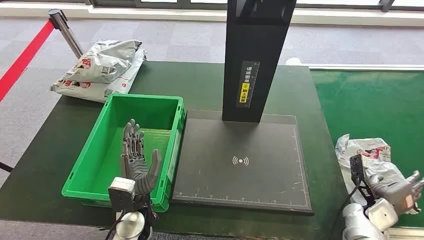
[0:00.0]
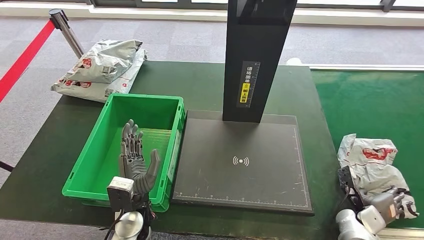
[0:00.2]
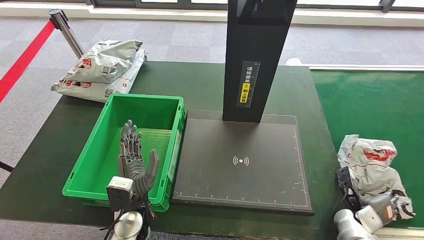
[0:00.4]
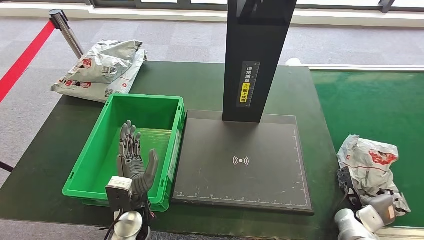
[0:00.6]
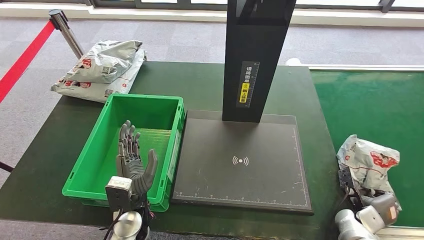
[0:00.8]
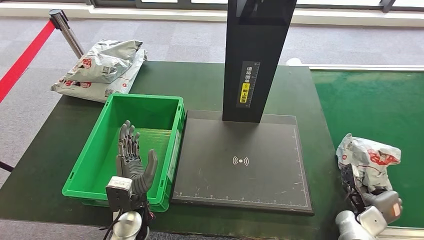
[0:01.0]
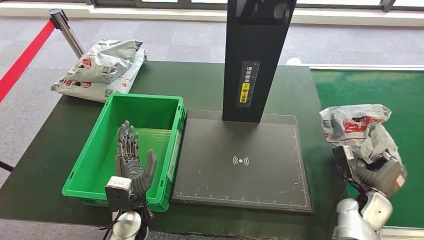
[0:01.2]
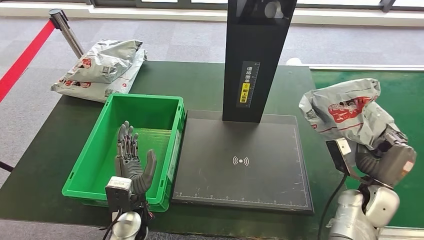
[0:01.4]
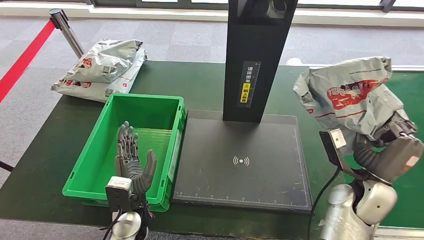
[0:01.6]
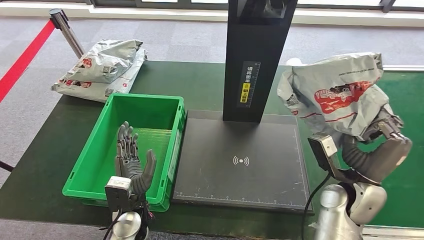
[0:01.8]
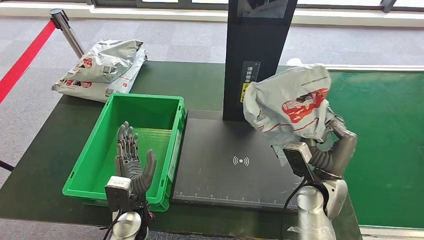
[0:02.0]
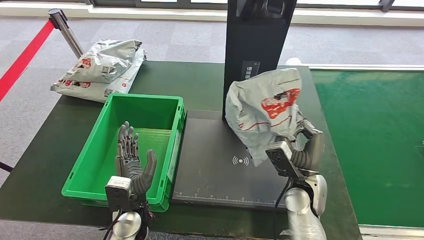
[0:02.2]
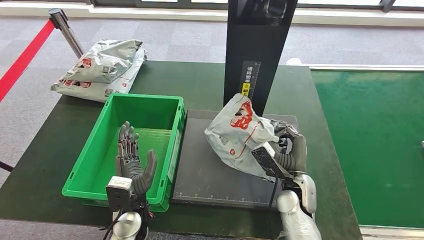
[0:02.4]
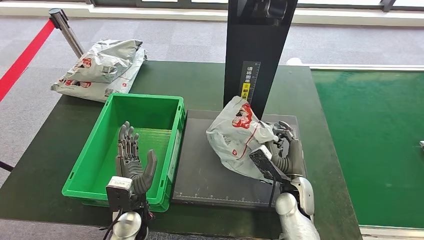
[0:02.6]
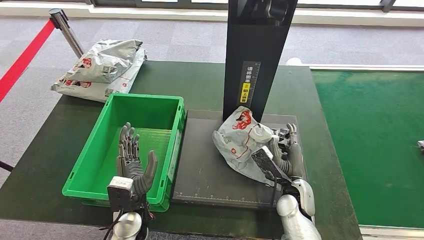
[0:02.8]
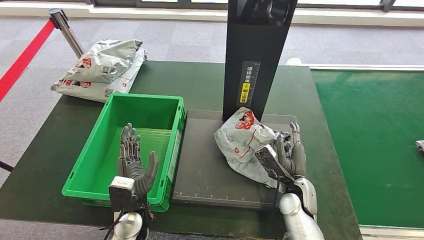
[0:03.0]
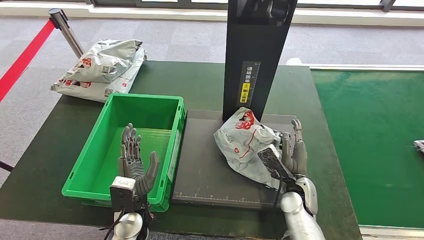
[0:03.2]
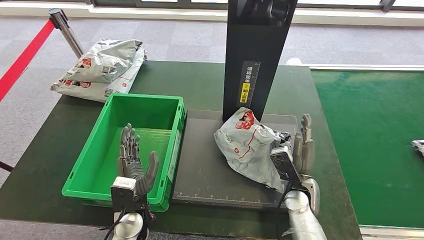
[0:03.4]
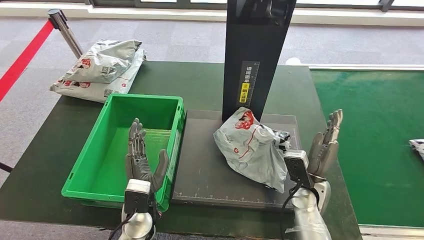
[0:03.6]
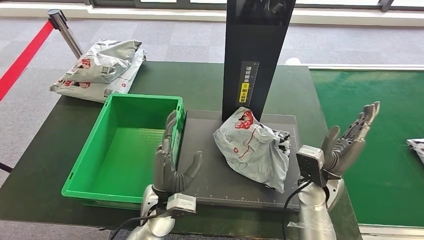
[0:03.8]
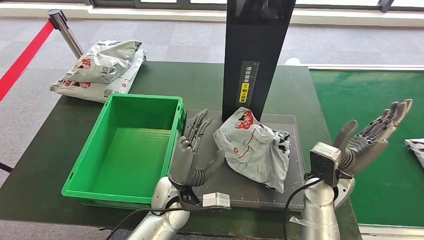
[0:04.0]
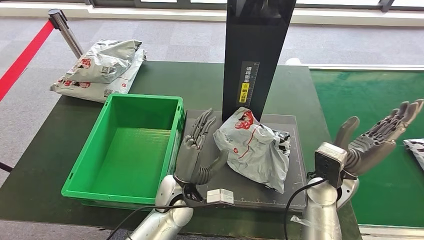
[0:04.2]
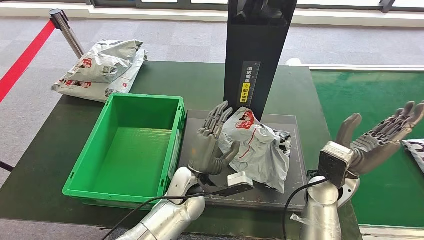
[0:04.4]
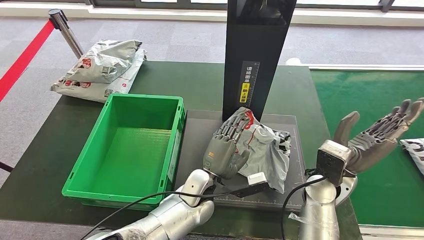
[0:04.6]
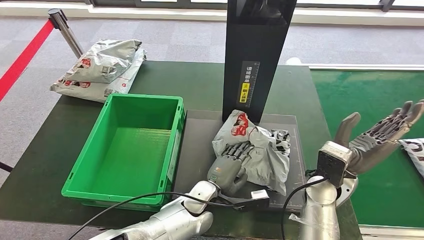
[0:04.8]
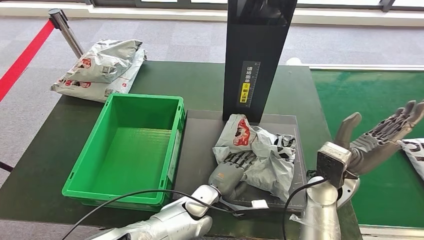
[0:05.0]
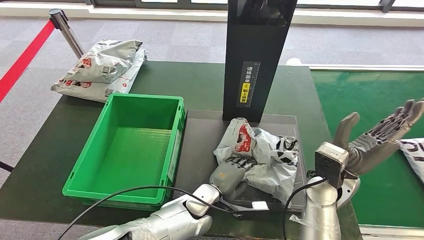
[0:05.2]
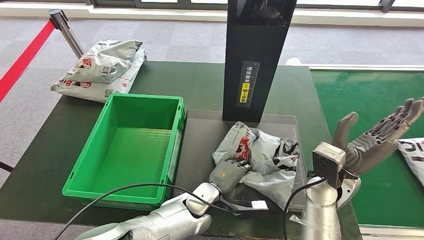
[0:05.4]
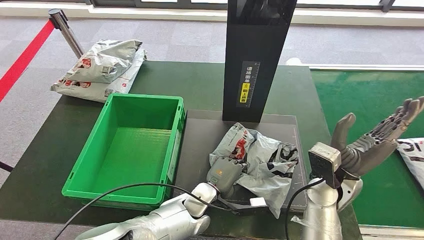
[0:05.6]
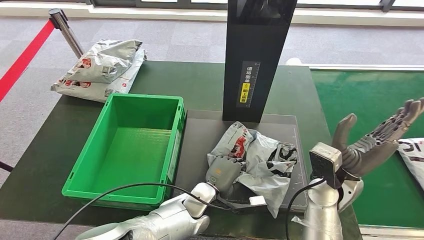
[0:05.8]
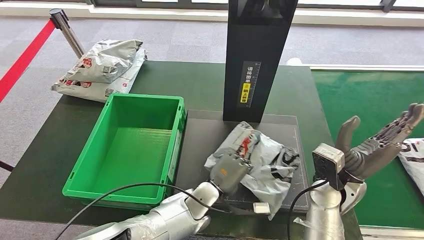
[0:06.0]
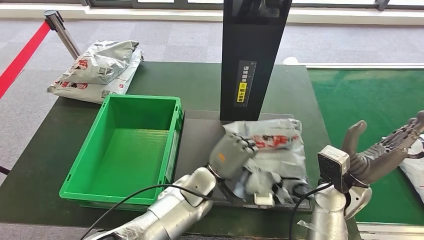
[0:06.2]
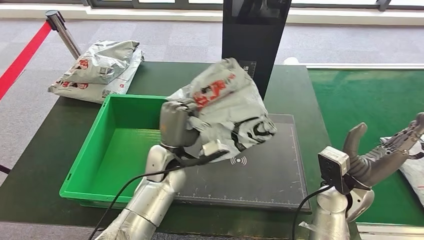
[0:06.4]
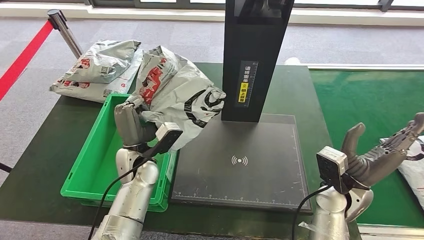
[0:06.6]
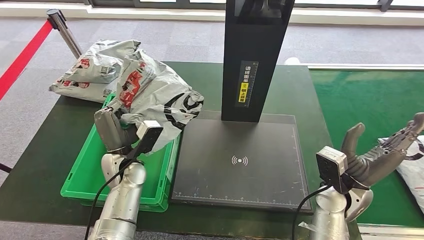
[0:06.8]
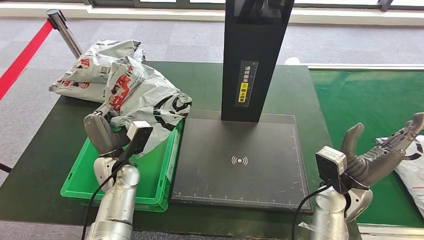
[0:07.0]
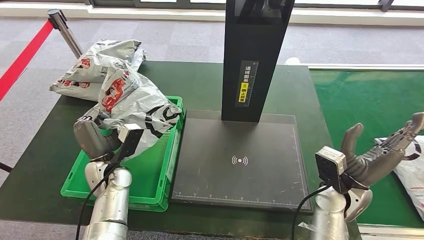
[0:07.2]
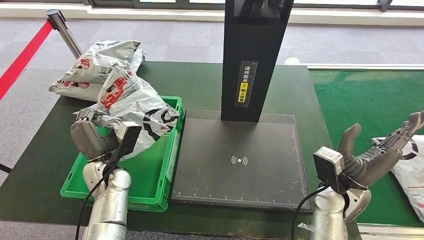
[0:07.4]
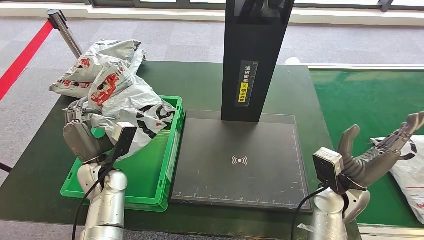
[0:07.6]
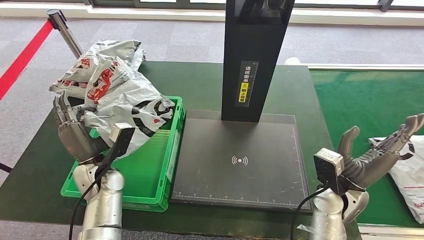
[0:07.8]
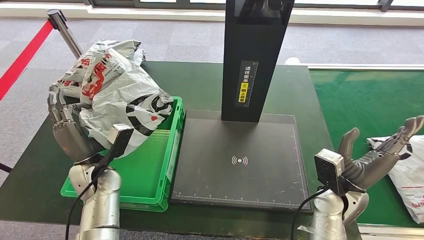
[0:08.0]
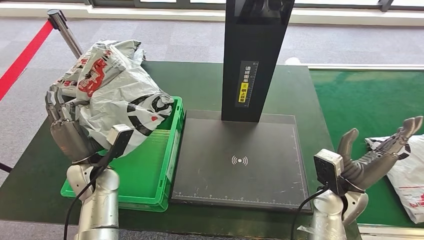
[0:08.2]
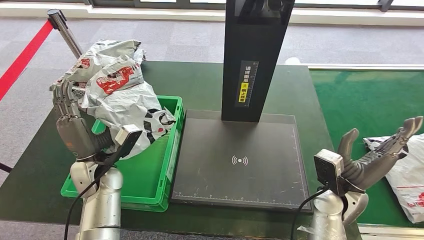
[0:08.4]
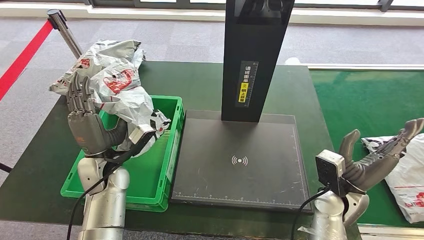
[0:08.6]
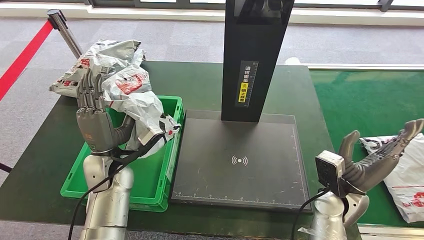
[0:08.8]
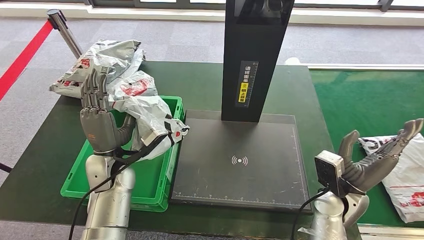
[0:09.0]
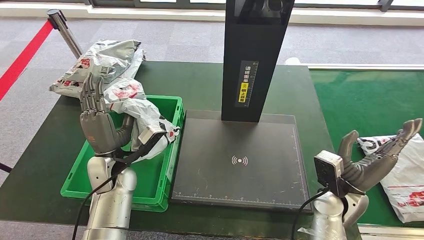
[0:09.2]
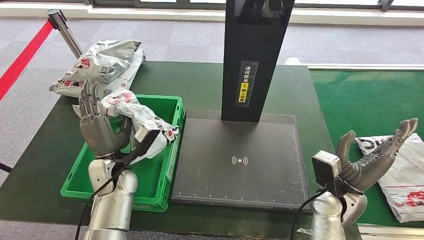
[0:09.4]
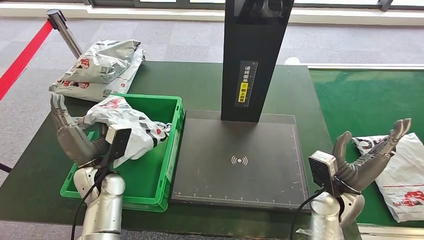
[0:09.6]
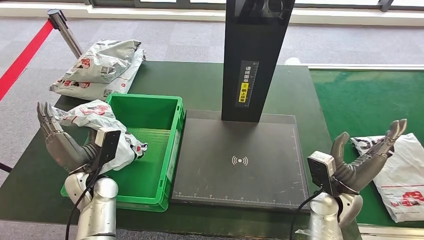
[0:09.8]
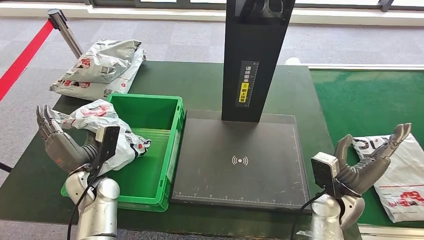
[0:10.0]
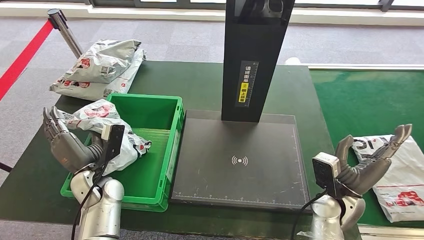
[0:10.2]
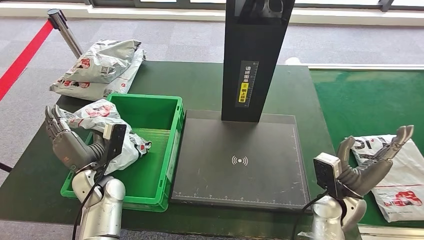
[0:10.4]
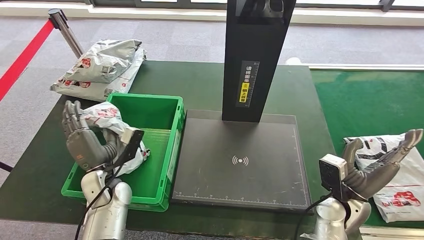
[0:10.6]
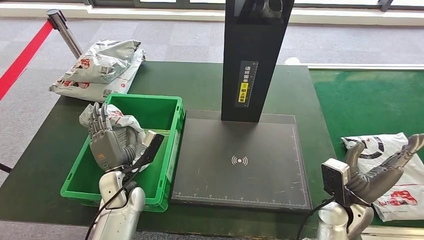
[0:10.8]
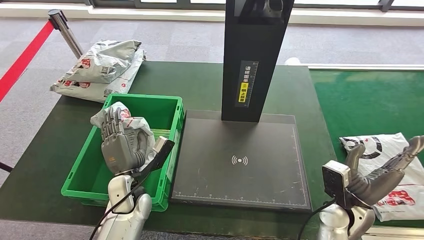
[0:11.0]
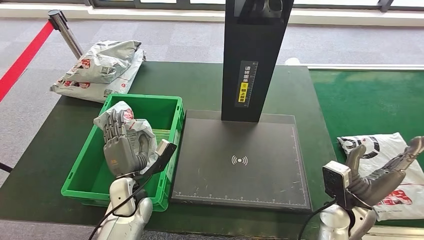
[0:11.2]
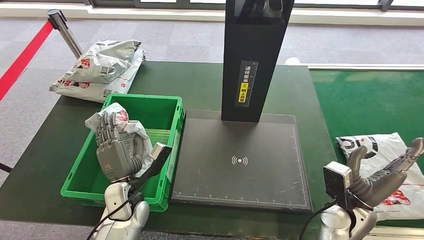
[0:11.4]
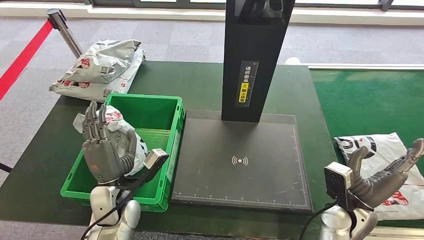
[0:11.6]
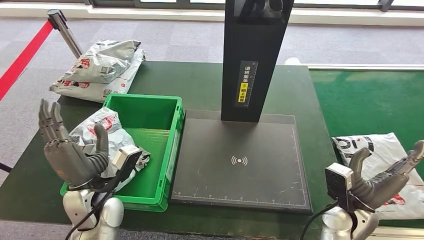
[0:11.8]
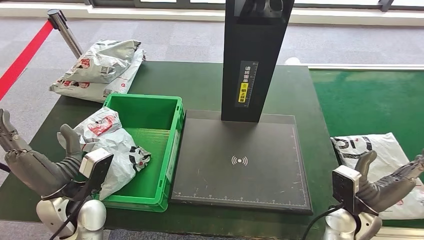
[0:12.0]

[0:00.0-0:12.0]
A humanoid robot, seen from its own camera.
Step, 0:00.0 to 0:01.4: Take the parcel off the conveyor belt.
Step, 0:01.8 to 0:03.4: Place the parcel onto the inbound machine.
Step, 0:03.6 to 0:06.6: Pick up the parcel from the inbound machine.
0:01.6 to 0:03.0: The right hand moves to the left and downward, roughly 15 cm.
0:03.0 to 0:04.4: The left hand heads to the right and forward, covering roughly 15 cm, while the right hand goes approximately 10 cm upward.
0:04.4 to 0:06.0: The left hand shifts roughly 5 cm downward.
0:07.6 to 0:09.0: The left hand shifts by approximately 5 cm.
0:09.0 to 0:10.4: The left hand is displaced downward by approximately 5 cm.
0:10.4 to 0:12.0: The left hand heads backward and upward, covering about 10 cm.

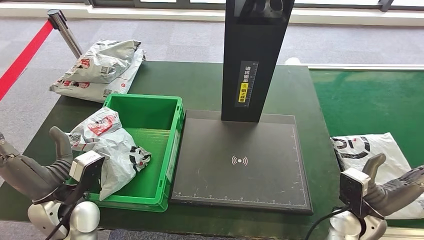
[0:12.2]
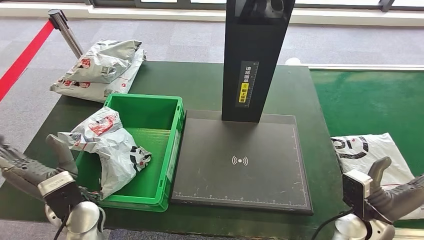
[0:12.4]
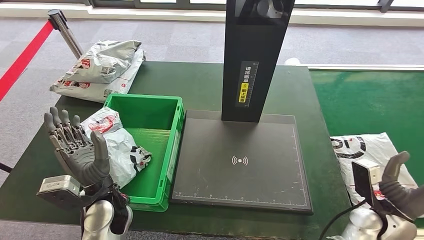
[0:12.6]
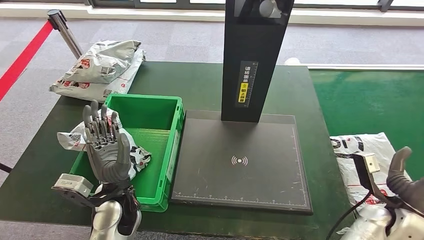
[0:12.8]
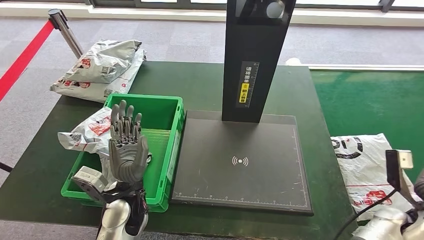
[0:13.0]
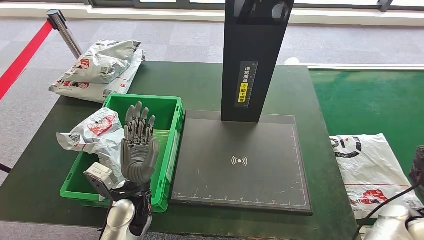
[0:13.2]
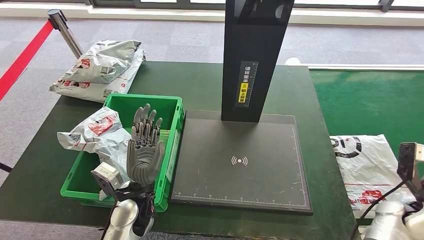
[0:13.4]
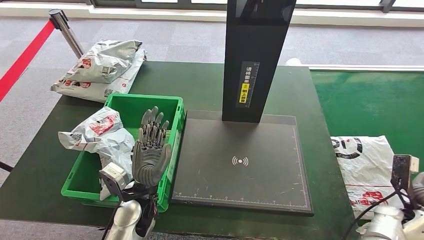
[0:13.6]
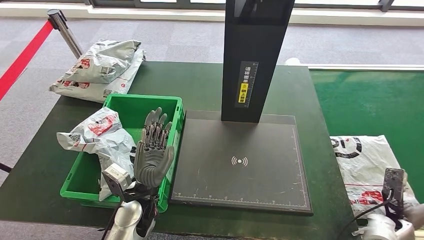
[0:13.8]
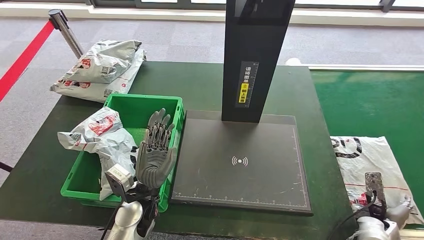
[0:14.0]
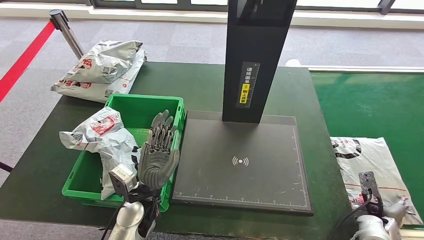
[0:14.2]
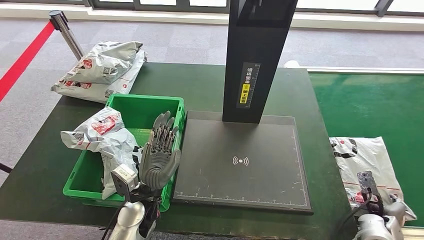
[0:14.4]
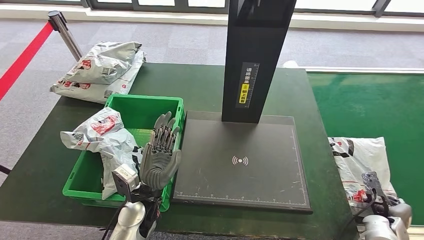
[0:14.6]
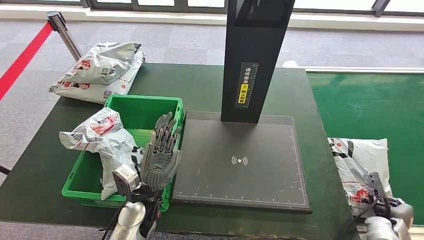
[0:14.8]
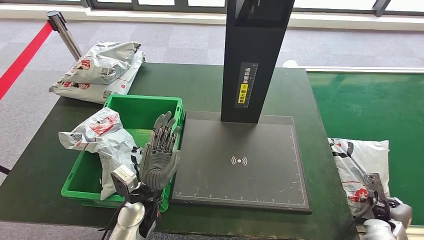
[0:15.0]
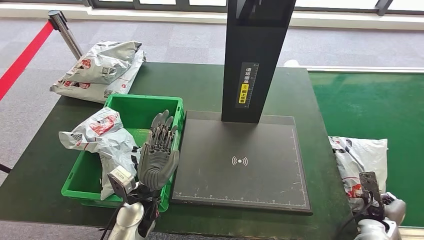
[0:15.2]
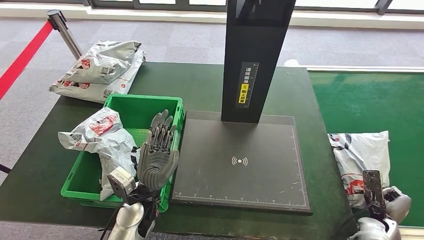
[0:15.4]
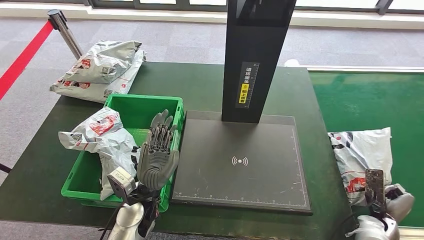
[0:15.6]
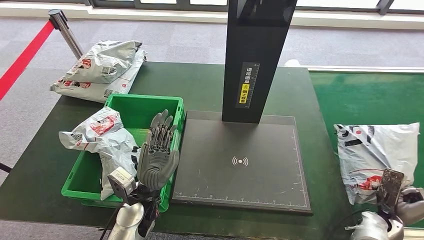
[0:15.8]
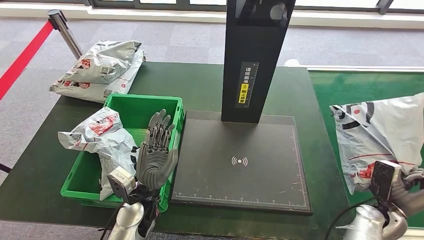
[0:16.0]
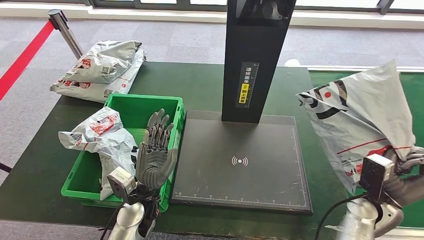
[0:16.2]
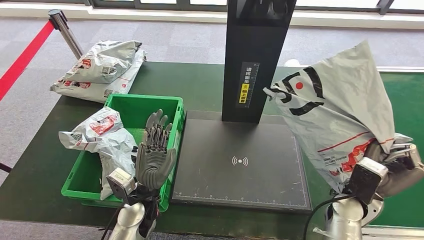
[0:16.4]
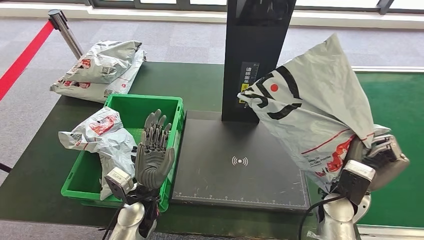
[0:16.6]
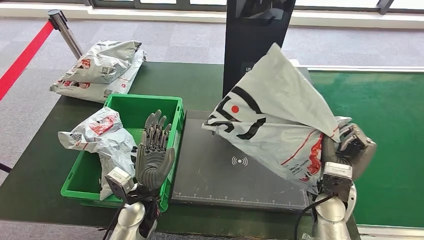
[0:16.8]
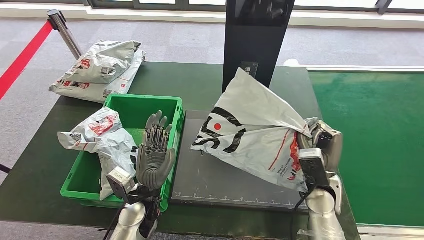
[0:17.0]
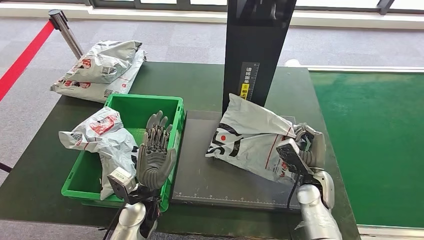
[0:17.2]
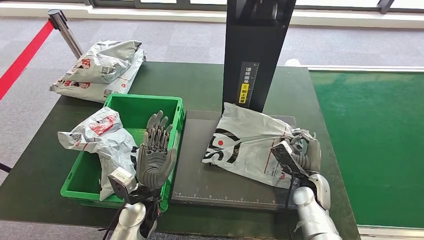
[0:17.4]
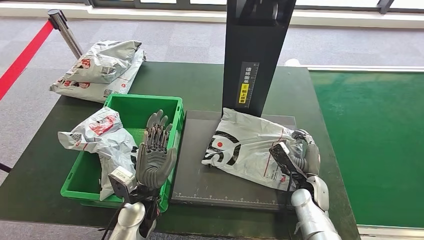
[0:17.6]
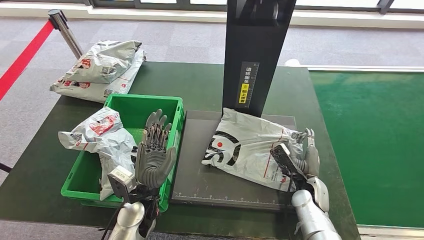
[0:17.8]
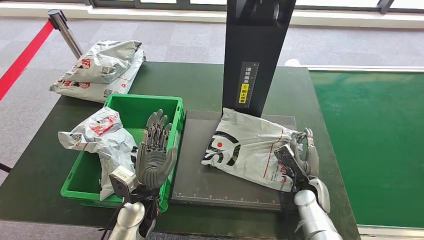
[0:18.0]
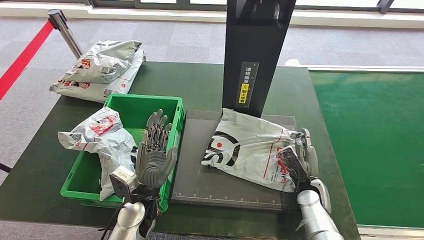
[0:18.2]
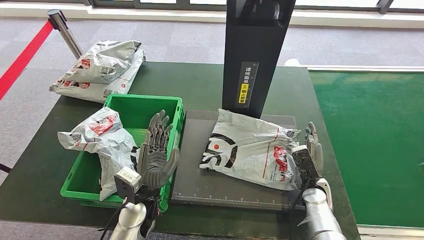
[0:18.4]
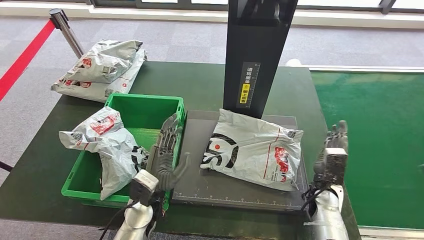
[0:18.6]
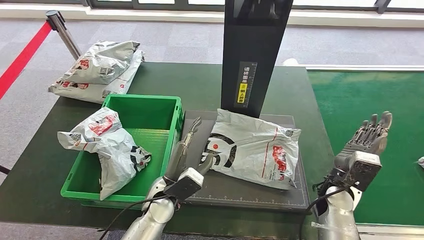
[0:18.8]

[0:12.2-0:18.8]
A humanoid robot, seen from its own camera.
Step, 0:14.4 to 0:16.2: Pick up the parcel from the conveyor belt.
0:12.2 to 0:13.8: Both hands travel together to the right and downward, some 15 cm.
0:15.4 to 0:17.2: The right hand moves to the left and upward, about 20 cm.
